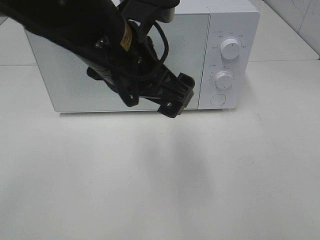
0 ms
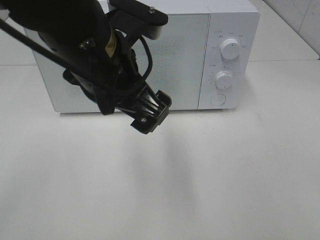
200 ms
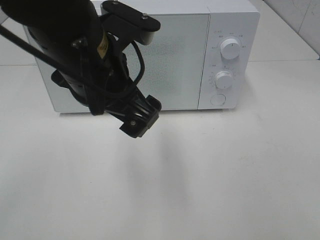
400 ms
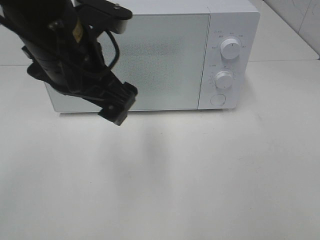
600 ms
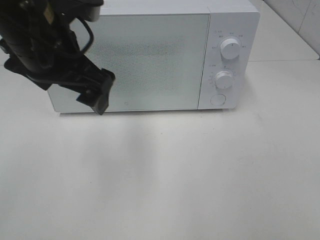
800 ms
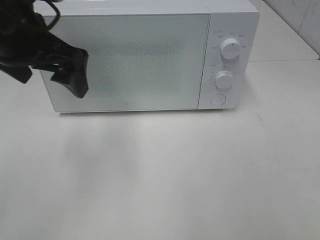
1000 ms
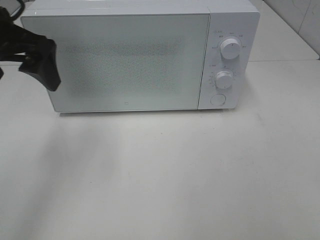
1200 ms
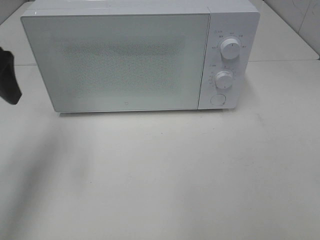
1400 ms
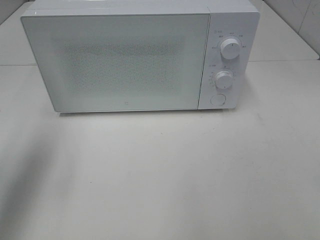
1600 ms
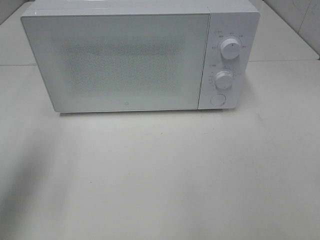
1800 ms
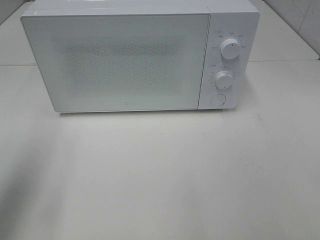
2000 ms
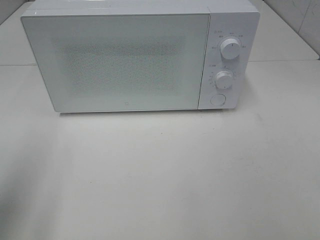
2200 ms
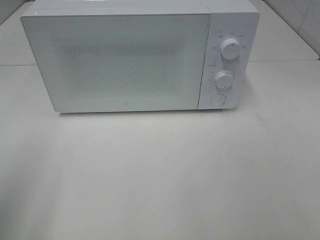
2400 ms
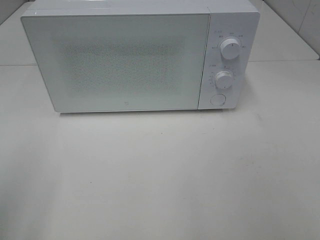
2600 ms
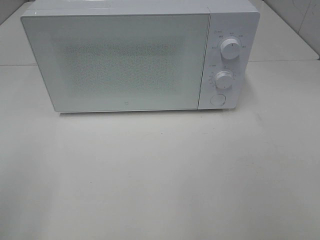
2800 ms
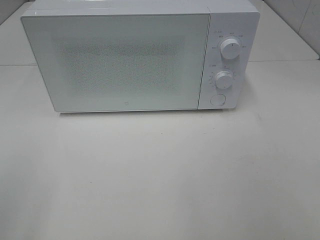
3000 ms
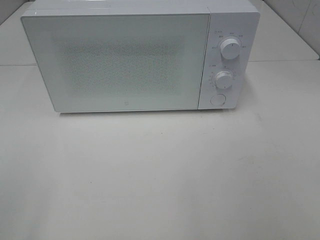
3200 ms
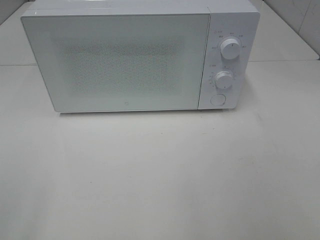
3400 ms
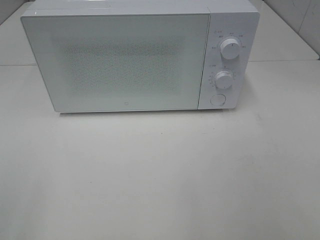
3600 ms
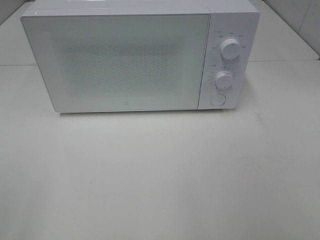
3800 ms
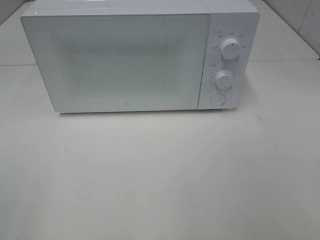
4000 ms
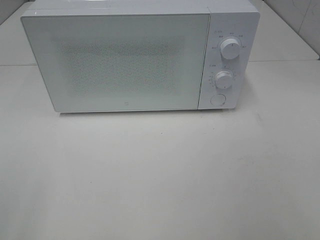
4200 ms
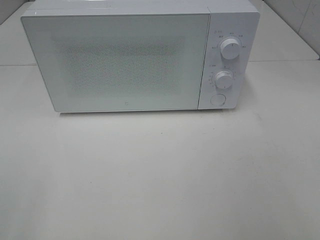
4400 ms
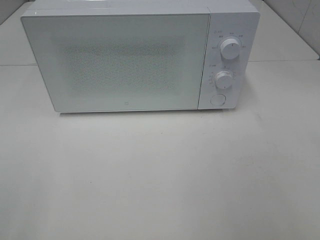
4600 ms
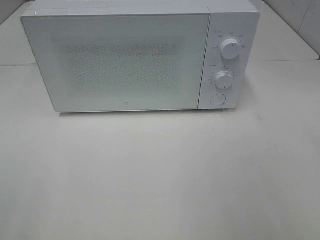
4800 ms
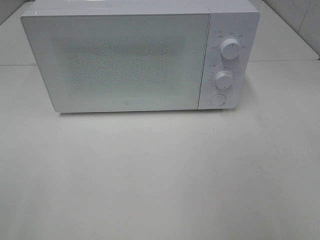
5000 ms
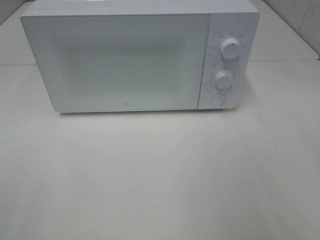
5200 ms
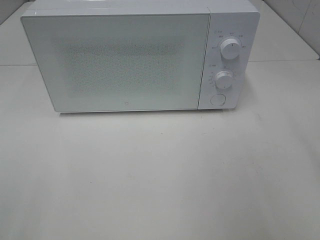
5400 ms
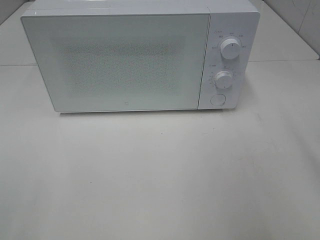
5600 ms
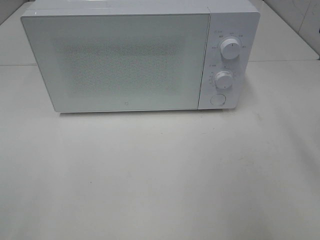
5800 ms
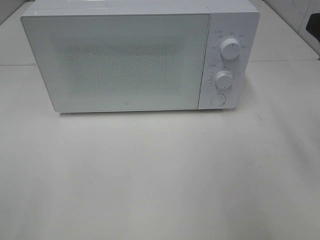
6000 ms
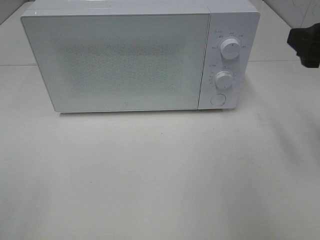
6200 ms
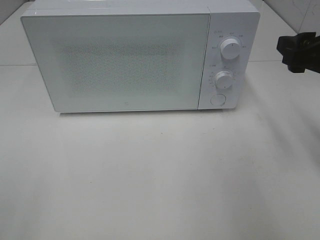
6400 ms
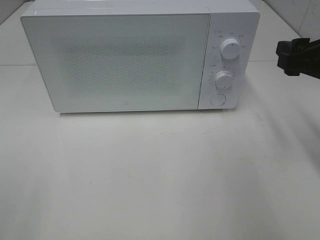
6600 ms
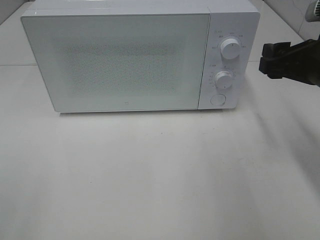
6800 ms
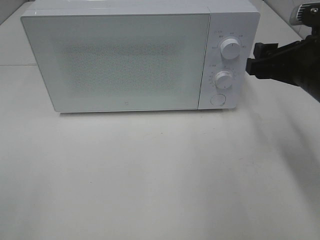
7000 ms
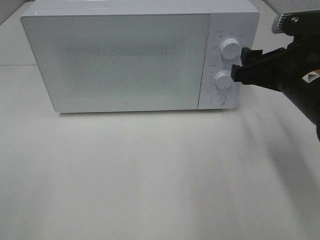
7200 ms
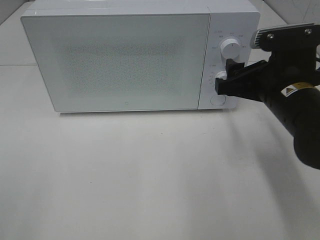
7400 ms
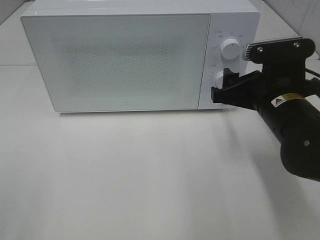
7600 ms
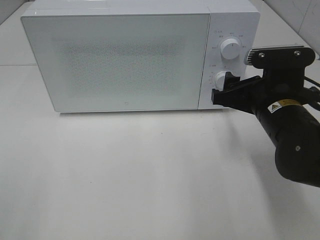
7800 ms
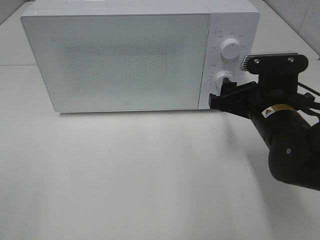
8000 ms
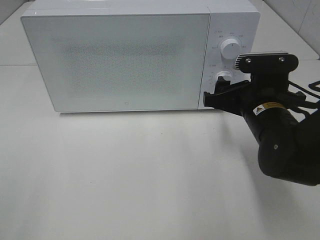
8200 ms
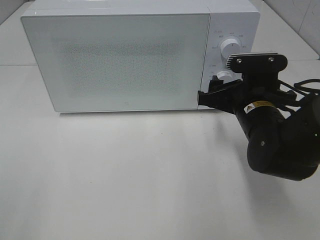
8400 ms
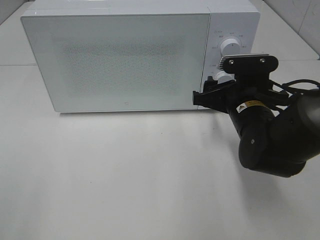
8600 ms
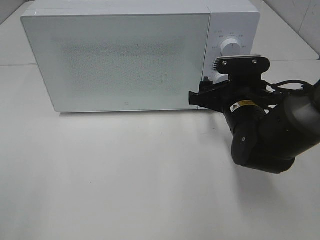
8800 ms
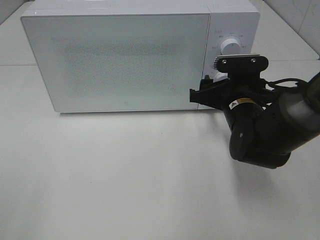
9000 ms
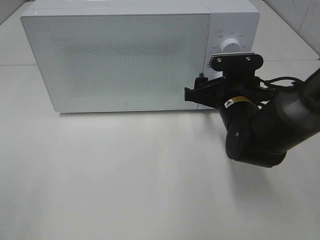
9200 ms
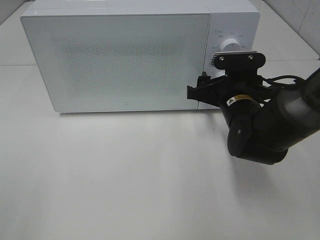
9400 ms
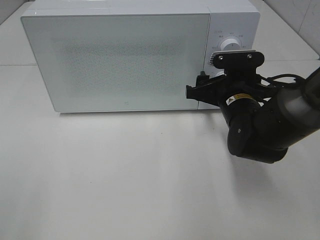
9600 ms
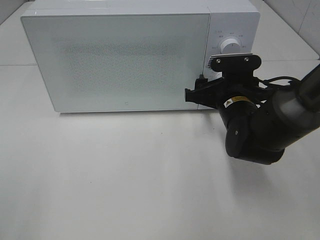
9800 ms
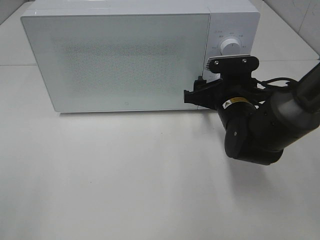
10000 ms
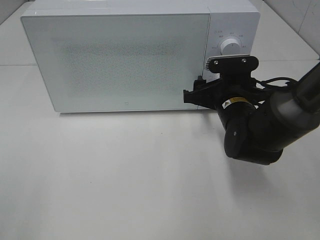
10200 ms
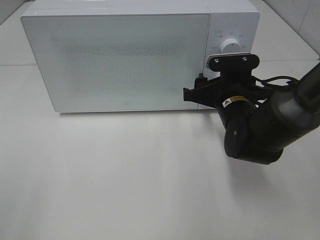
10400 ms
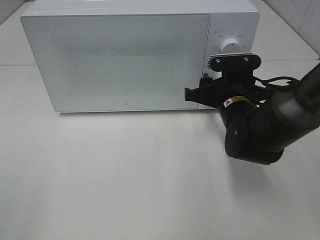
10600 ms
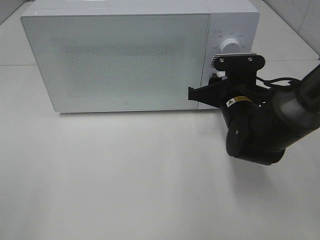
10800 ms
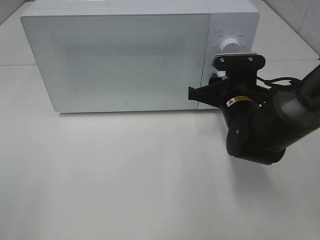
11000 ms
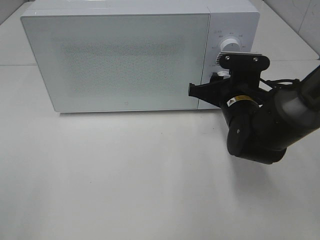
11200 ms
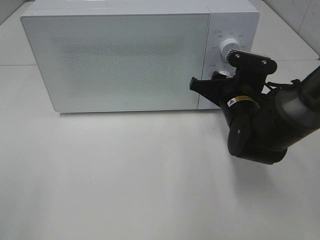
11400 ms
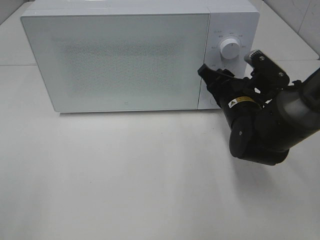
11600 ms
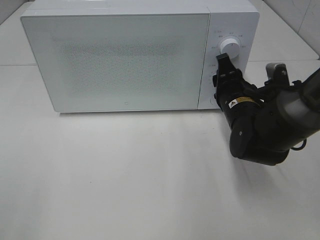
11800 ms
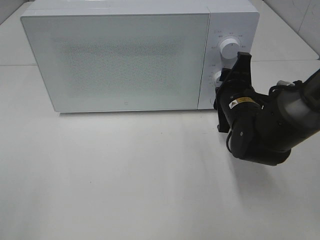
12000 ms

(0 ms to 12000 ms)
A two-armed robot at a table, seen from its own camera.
Task of the whole recording: Heat the burger.
0 ms - 1600 ms: The left gripper is displaced to the left by about 25 cm.
1600 ms - 3000 ms: The left gripper travels backward by approximately 20 cm.
6000 ms - 7600 ms: The right gripper heads downward, to the left and forward, covering about 15 cm.
7600 ms - 9000 ms: The right gripper heads forward and downward, covering approximately 10 cm.
9000 ms - 10400 ms: Both grippers stay about where they are.

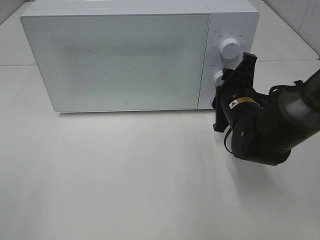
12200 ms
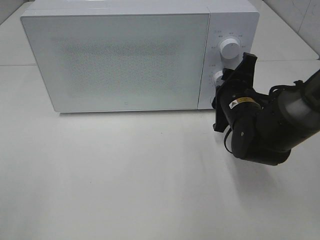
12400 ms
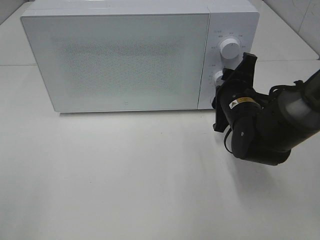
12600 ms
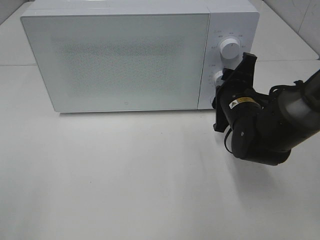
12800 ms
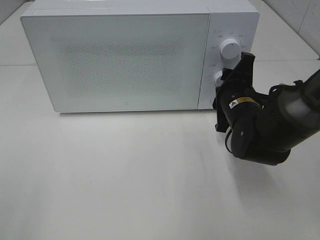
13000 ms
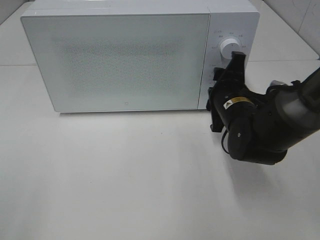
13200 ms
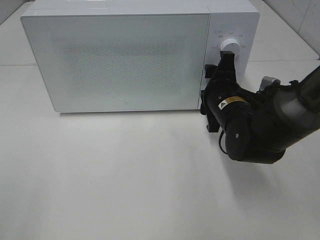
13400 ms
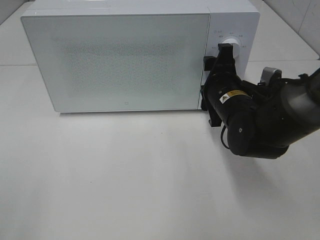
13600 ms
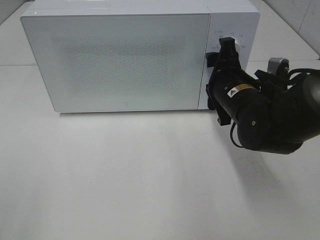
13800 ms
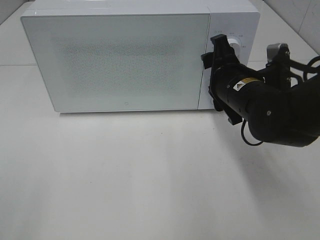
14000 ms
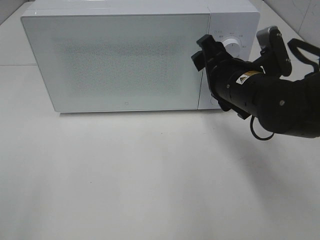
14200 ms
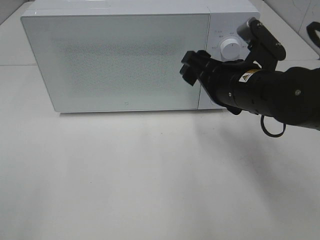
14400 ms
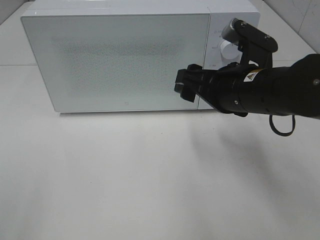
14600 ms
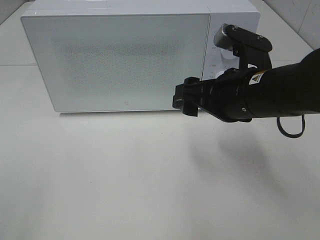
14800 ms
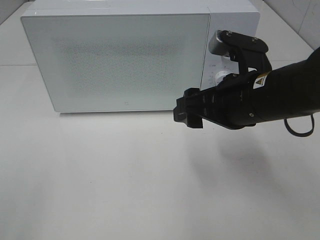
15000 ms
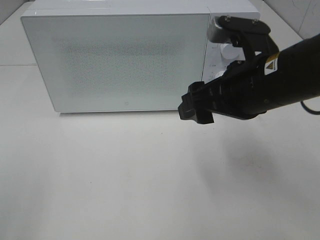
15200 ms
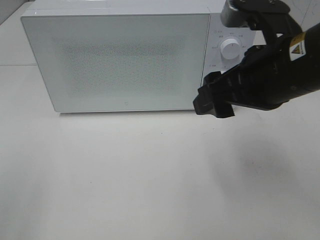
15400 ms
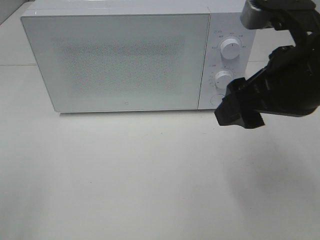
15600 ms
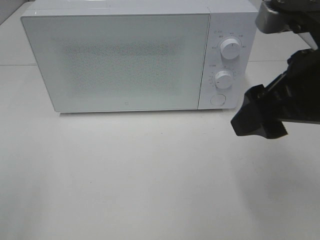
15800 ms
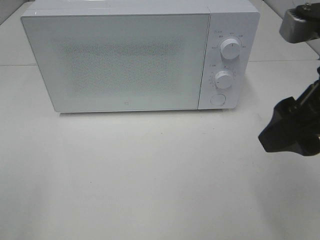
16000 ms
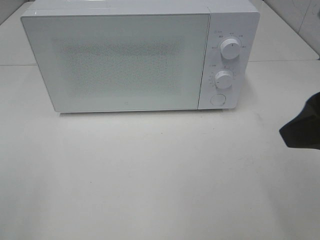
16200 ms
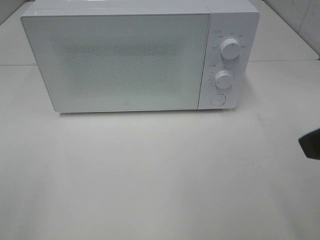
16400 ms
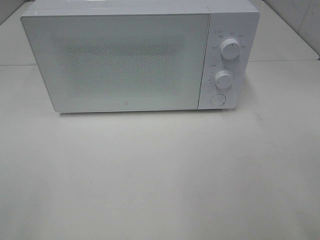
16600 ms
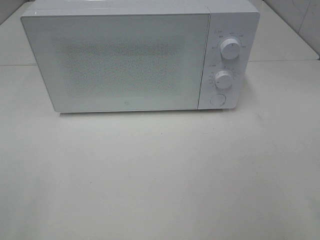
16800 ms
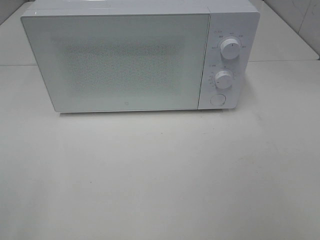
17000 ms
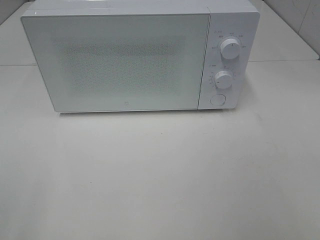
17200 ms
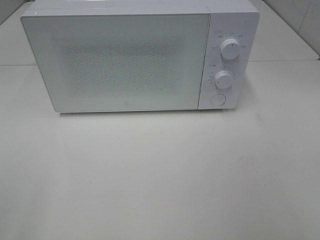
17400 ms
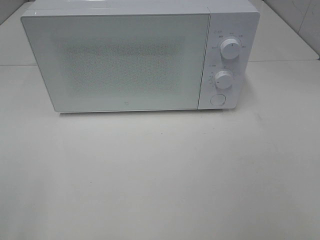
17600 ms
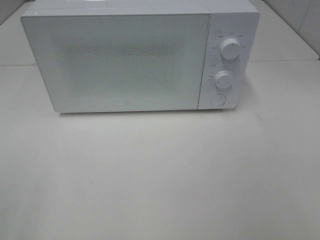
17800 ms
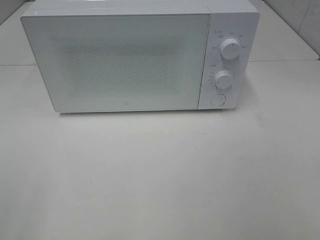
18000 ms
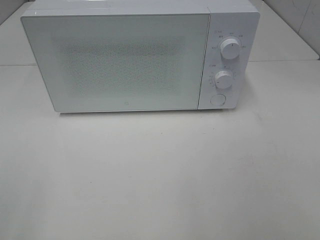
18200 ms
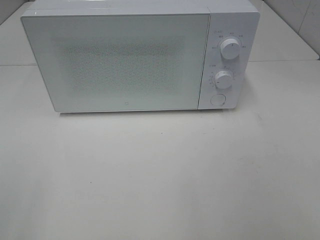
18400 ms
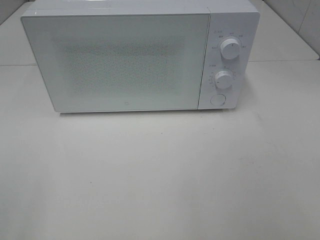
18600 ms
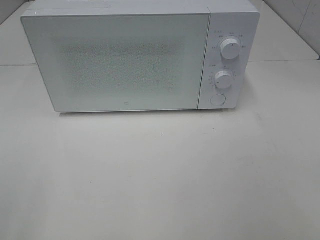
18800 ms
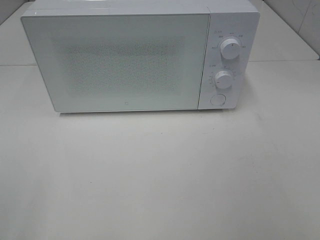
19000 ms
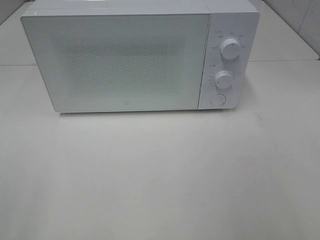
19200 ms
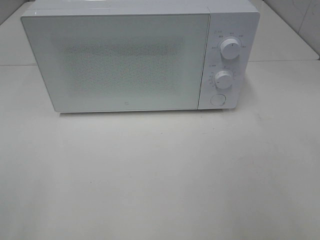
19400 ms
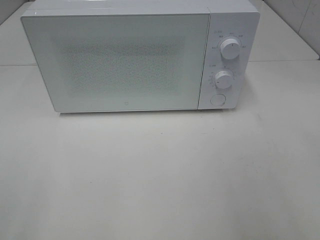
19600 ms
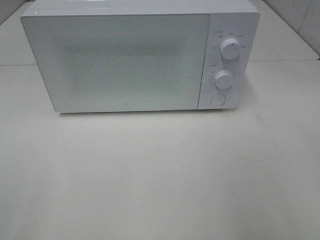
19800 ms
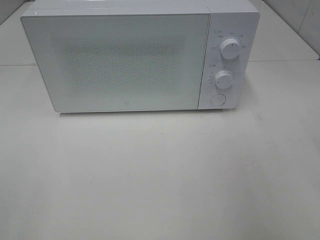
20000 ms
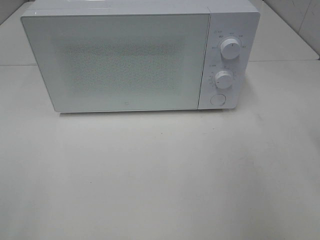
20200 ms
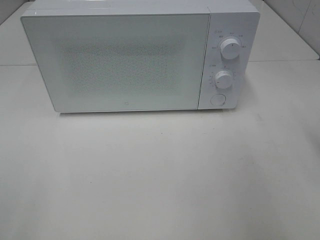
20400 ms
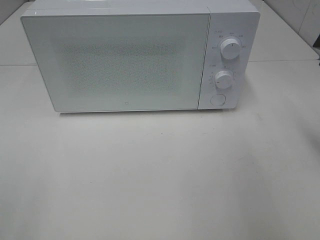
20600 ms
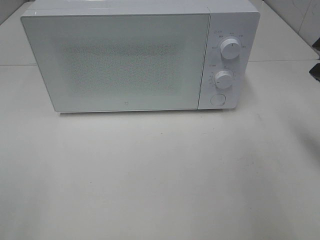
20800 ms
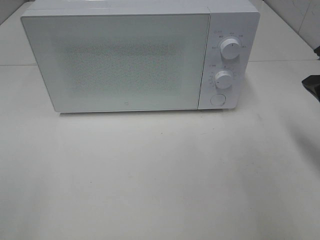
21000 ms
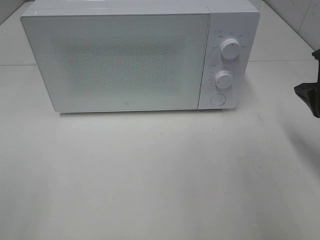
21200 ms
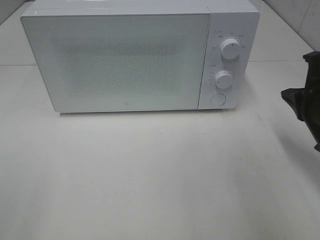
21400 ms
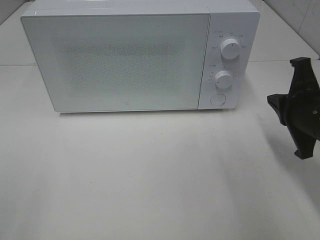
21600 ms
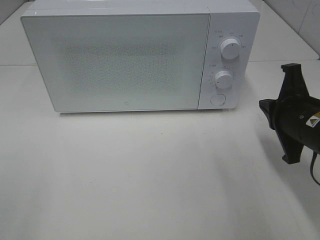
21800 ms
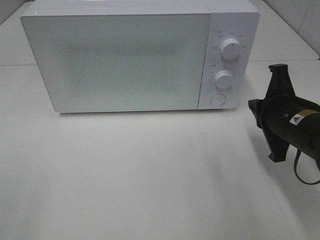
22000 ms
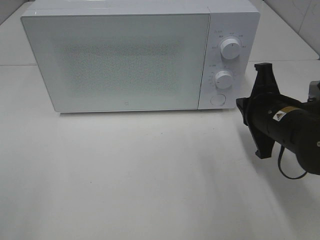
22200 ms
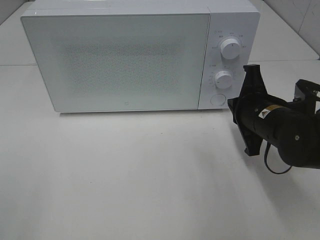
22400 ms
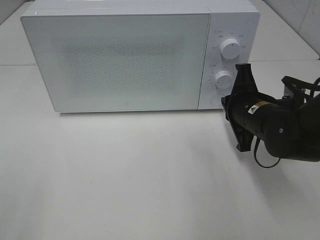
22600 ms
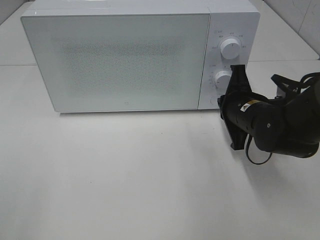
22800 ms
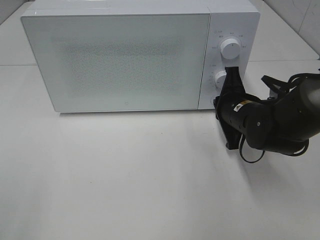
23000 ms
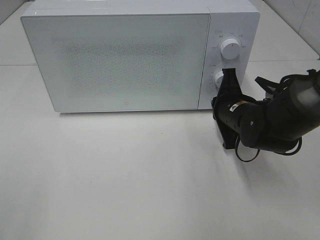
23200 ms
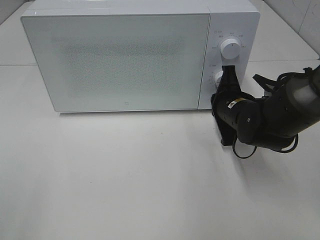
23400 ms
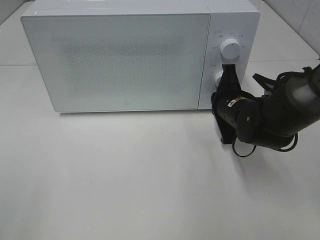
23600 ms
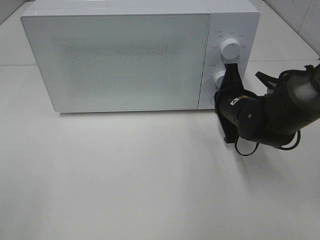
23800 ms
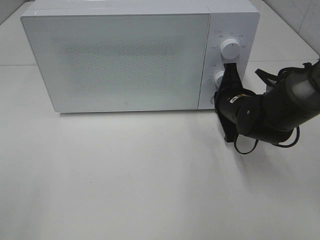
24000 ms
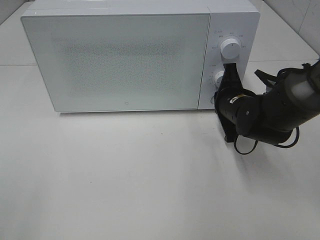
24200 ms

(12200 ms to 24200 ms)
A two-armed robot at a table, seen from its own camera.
Task of the whole recording: Heat the burger.
13800 ms - 15200 ms: The right gripper goes approximately 10 cm upward and backward.
15200 ms - 16600 ms: The right gripper heads backward and to the right, covering roughly 20 cm.
19800 ms - 21200 ms: The right gripper goes some 15 cm downward and forward, and closes its fingers.
21200 ms - 22600 ms: The right gripper shifts approximately 15 cm to the left, downward and forward.
22600 ms - 24200 ms: The right gripper shifts by some 5 cm.
